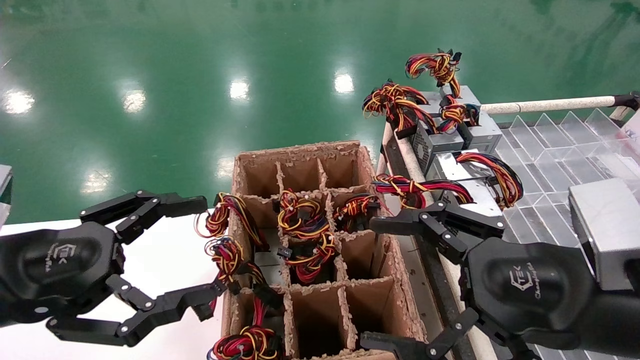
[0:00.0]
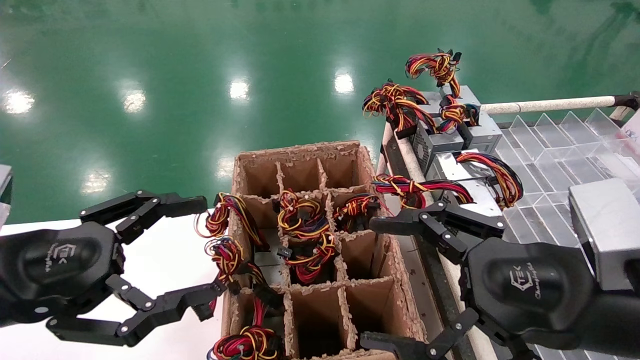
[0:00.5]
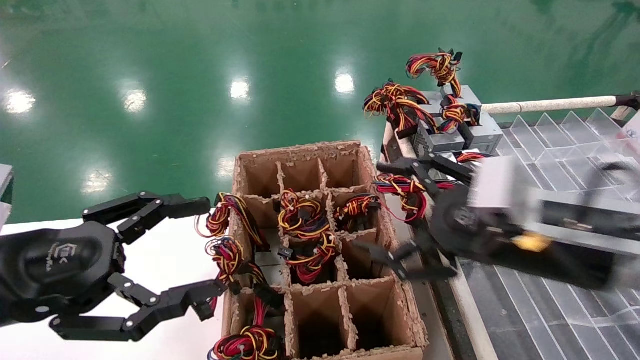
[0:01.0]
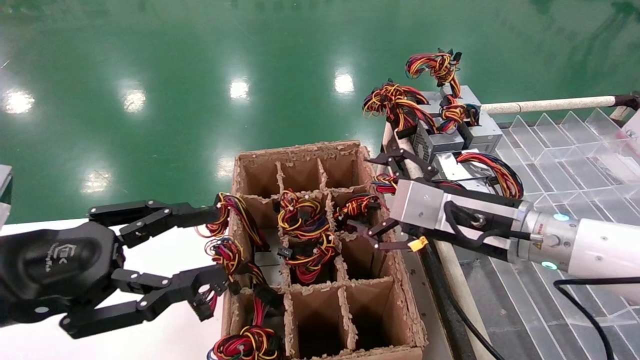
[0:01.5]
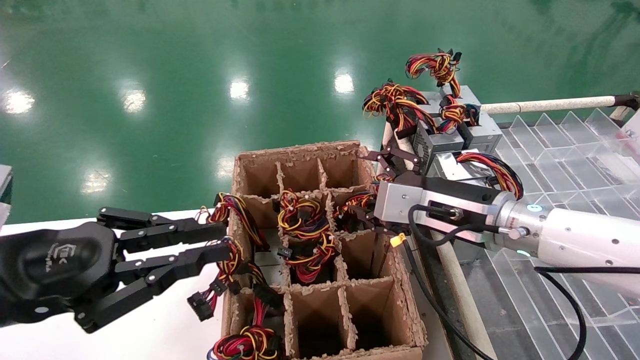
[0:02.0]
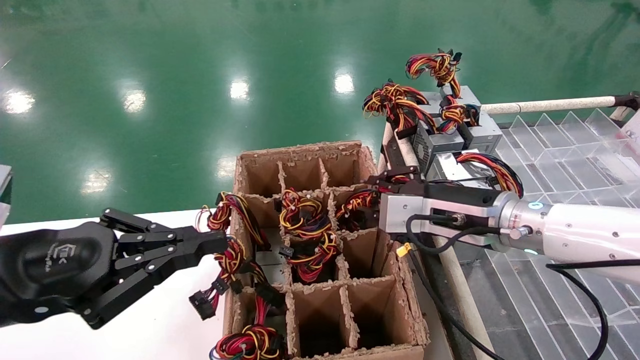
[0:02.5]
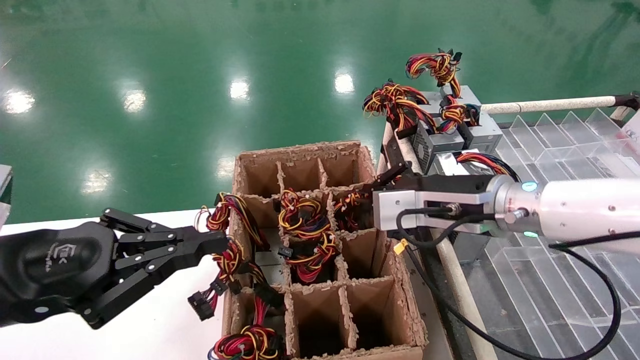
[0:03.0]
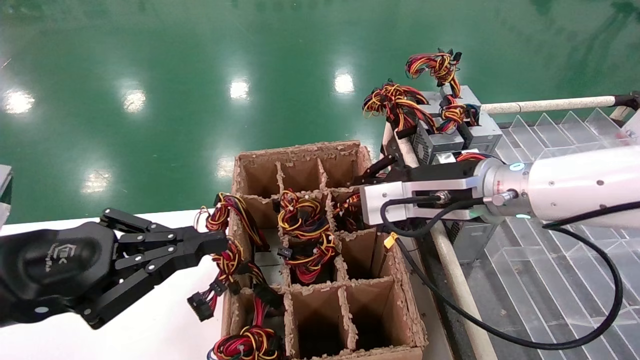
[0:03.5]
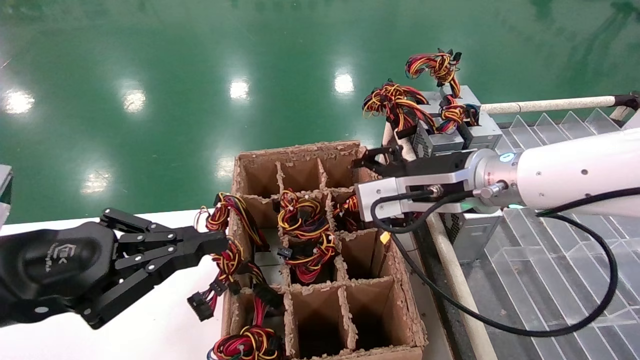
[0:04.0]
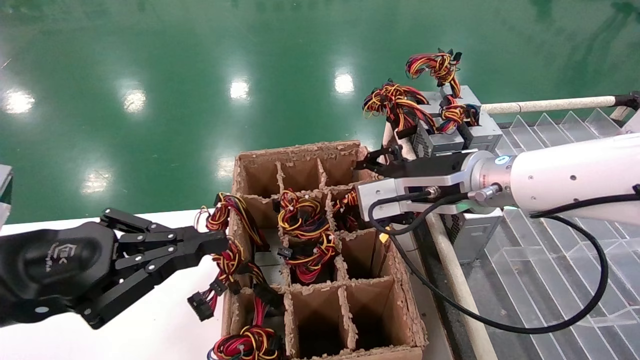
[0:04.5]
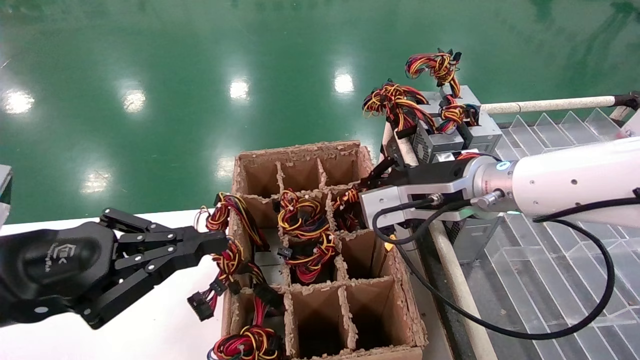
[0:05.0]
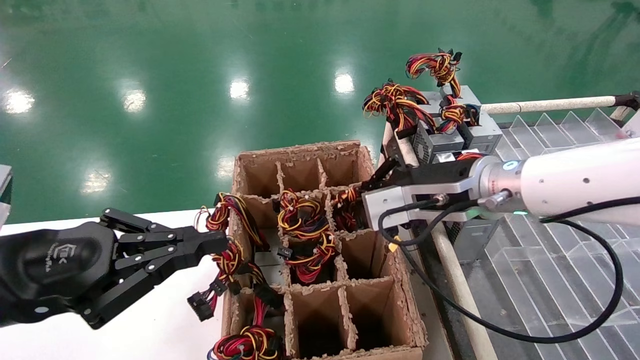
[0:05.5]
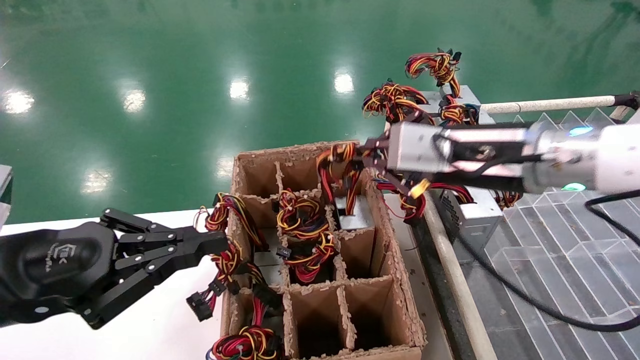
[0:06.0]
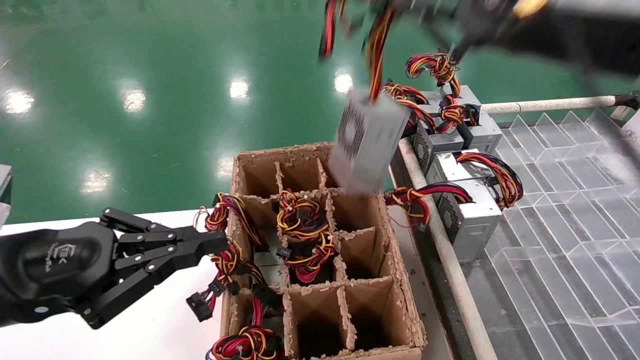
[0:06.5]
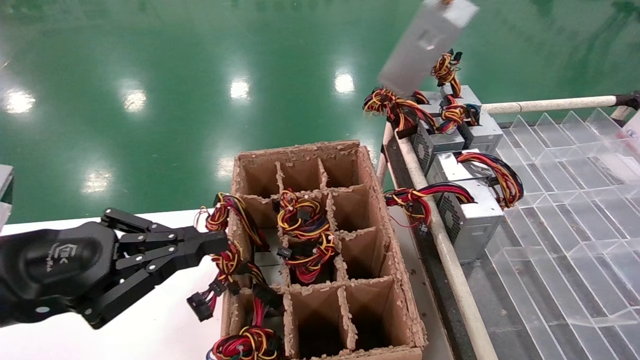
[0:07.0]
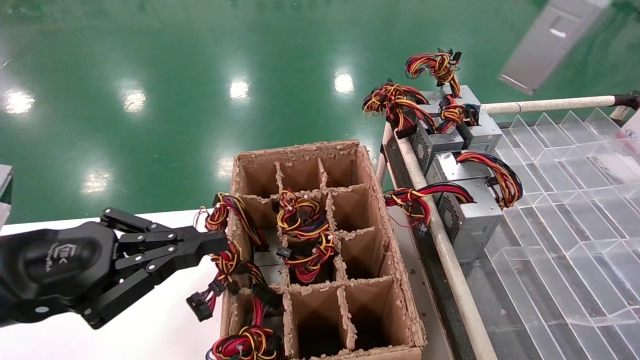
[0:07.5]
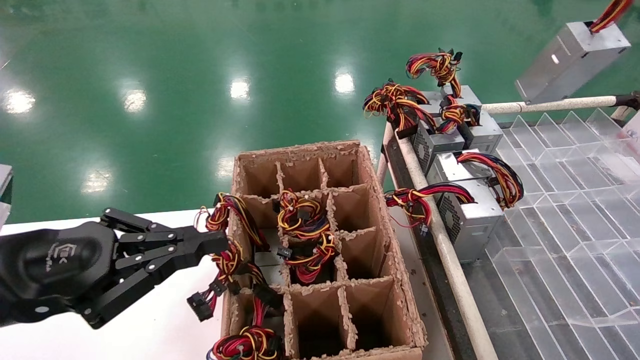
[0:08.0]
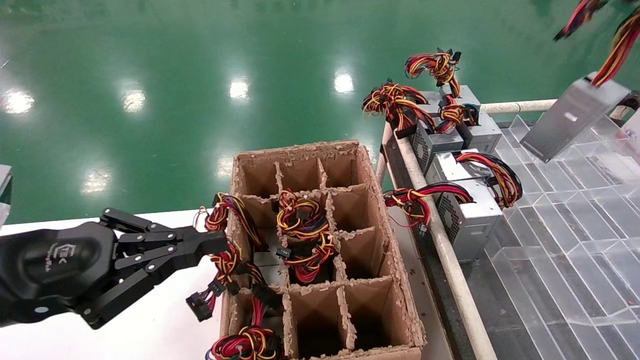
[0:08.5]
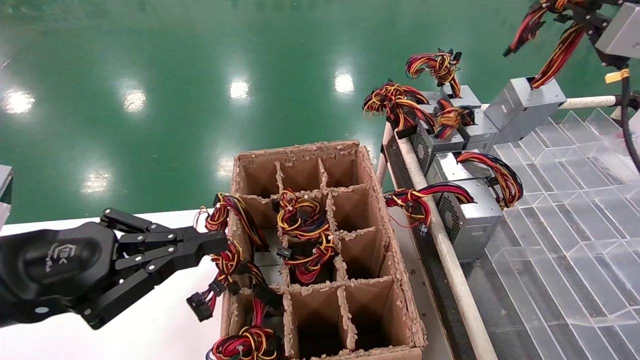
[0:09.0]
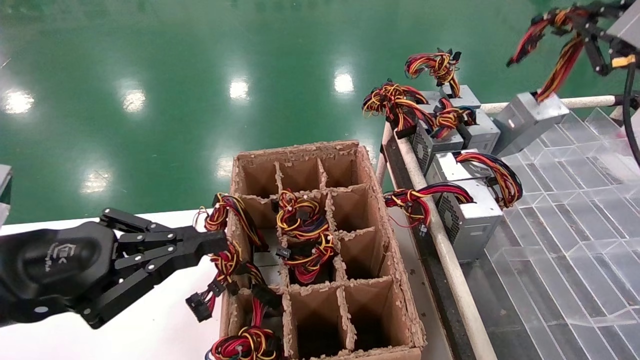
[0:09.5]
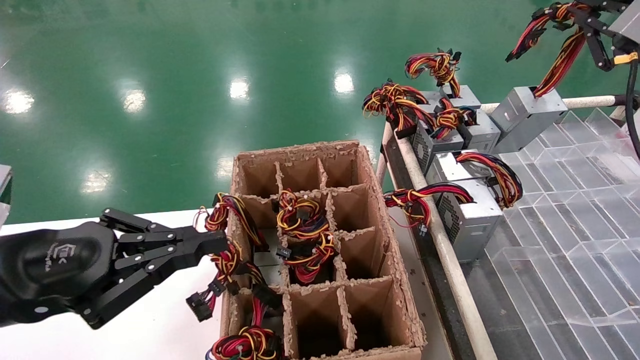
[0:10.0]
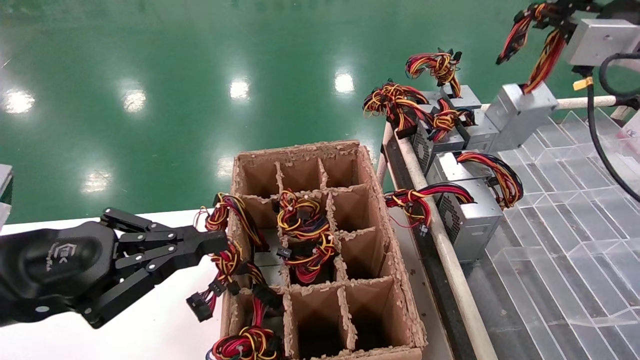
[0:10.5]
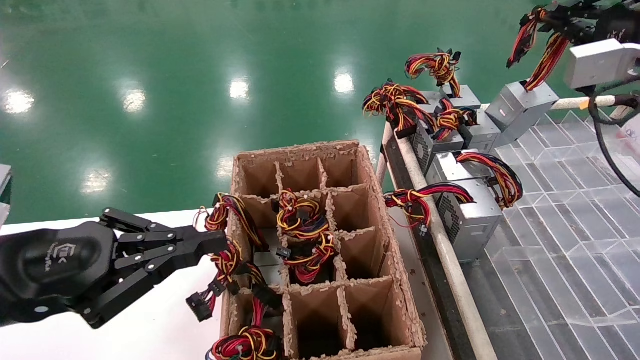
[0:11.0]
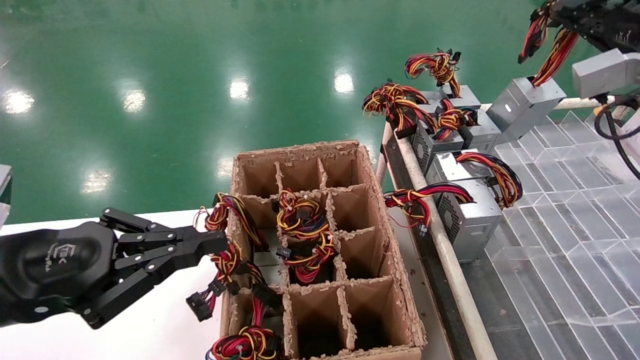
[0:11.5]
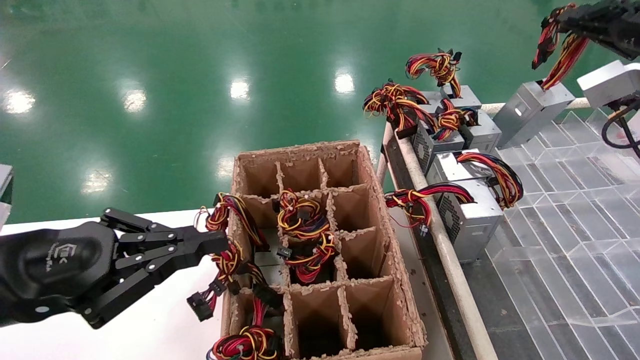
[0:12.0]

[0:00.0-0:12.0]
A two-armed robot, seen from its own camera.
Step, 0:01.0 to 0:05.0: Grab the main unit power supply from the containment box.
0:00.0 to 0:02.0: The right gripper goes about 15 cm forward. The left gripper closes its fingers.
0:02.0 to 0:04.0: The right gripper moves upward, approximately 5 cm, and closes up.
0:04.0 to 0:06.0: The right gripper goes roughly 5 cm upward, and closes its fingers.
0:06.0 to 0:08.0: The right gripper is displaced to the right and upward by about 30 cm.
0:08.0 to 0:10.0: The right gripper goes approximately 10 cm downward and forward.

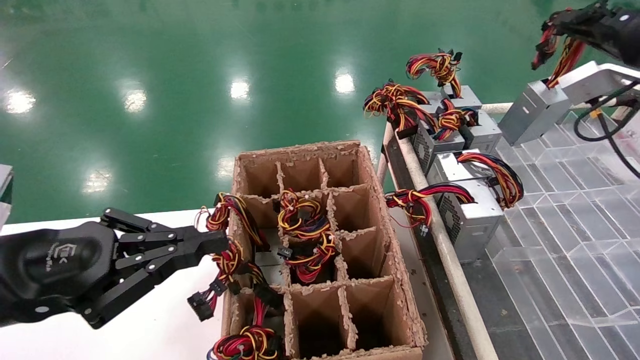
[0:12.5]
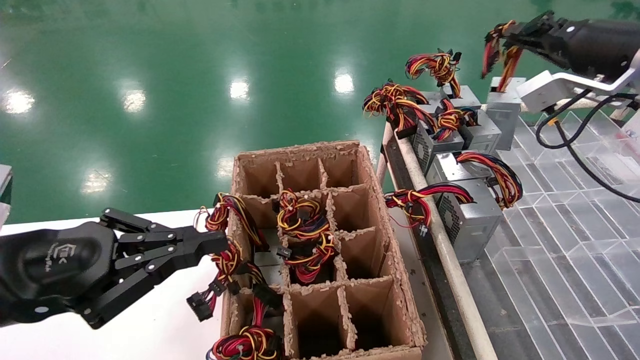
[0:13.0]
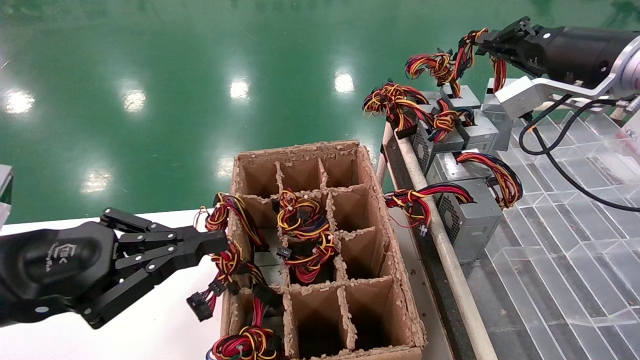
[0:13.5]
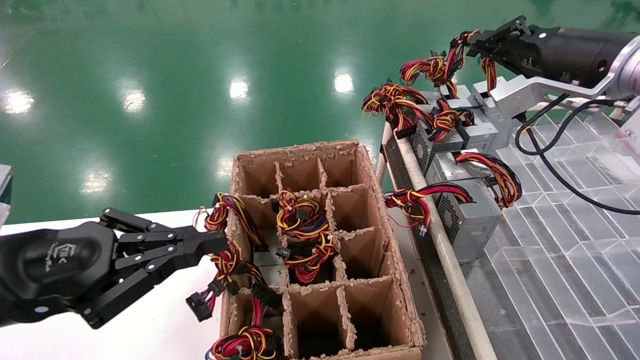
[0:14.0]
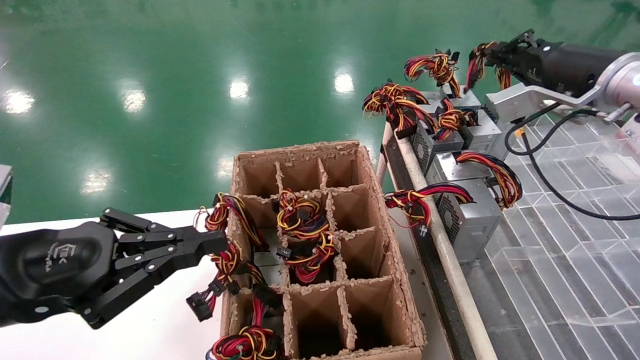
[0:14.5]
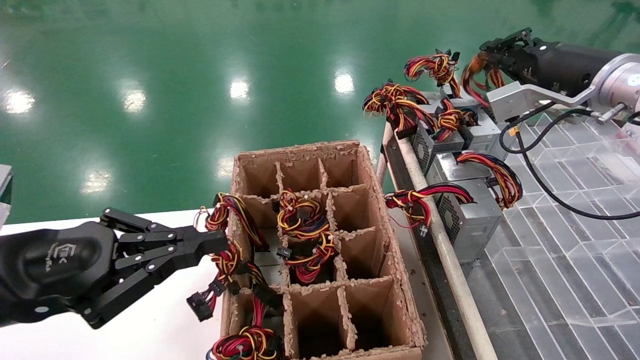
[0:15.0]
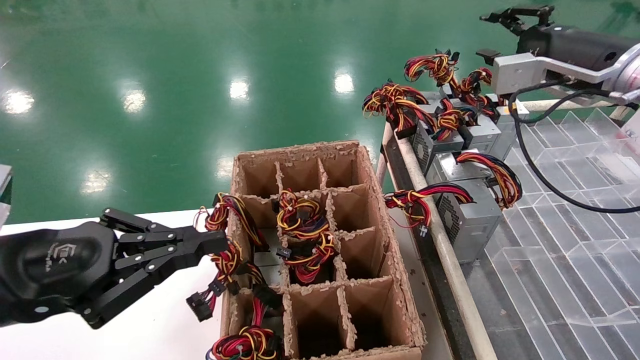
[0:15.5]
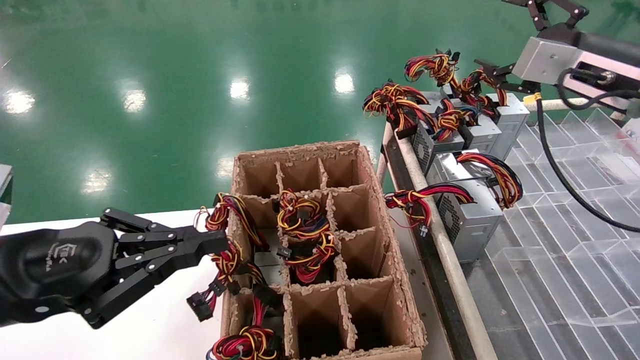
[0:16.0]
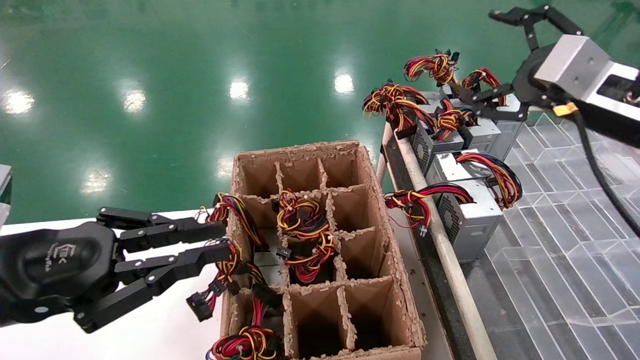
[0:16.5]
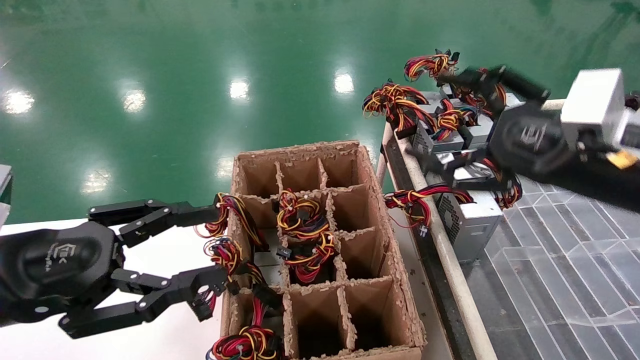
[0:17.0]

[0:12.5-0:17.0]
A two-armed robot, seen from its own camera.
Step, 0:12.5 to 0:15.0: Place the main unit power supply in the designated area.
0:12.5 to 0:14.5: The right gripper moves to the left, some 5 cm.
0:14.5 to 0:17.0: The left gripper opens. Meanwhile the right gripper goes about 20 cm backward, downward and to the left, and opens.

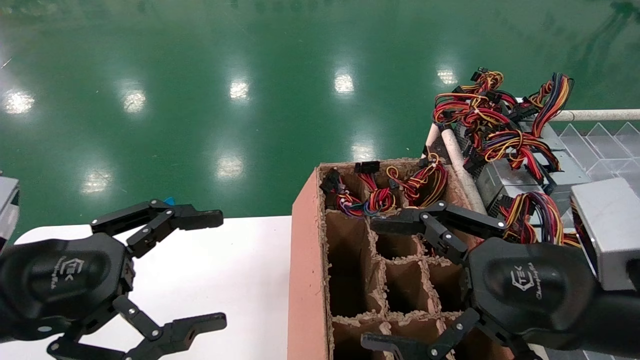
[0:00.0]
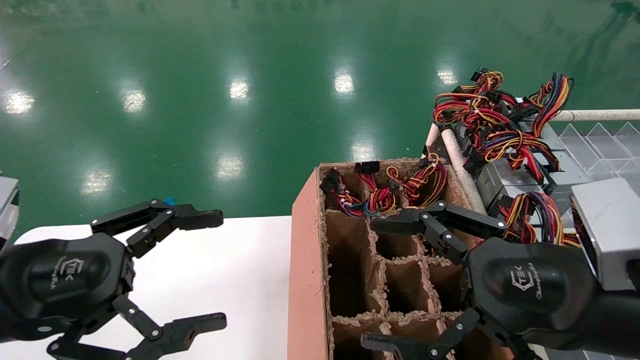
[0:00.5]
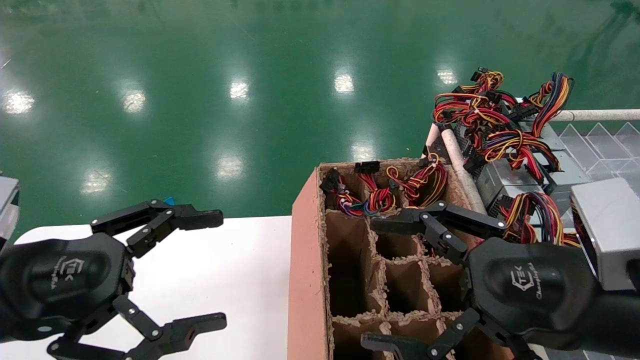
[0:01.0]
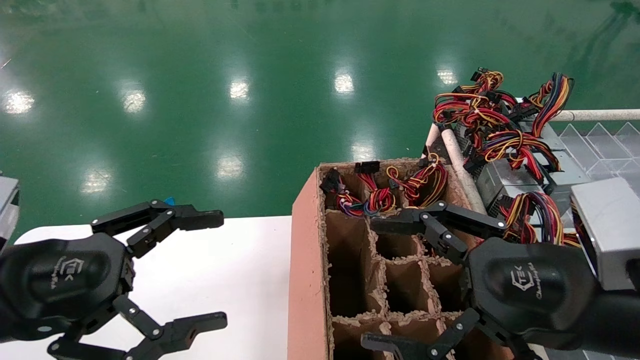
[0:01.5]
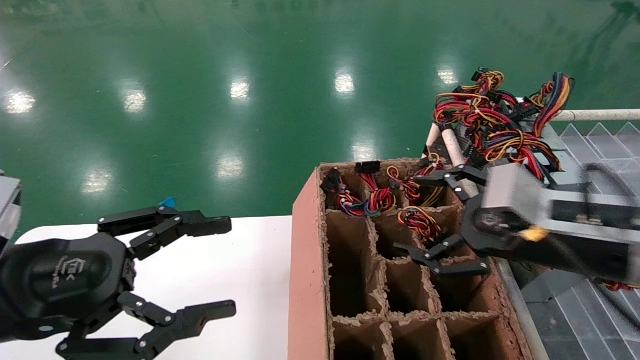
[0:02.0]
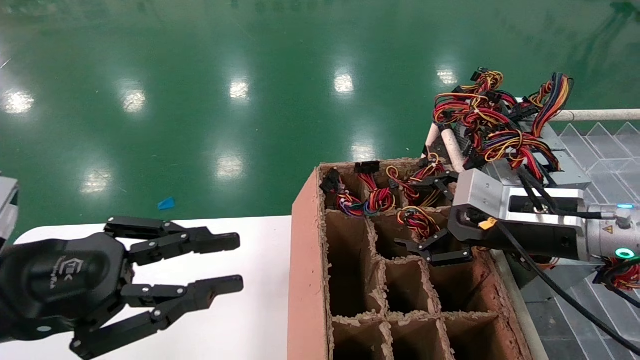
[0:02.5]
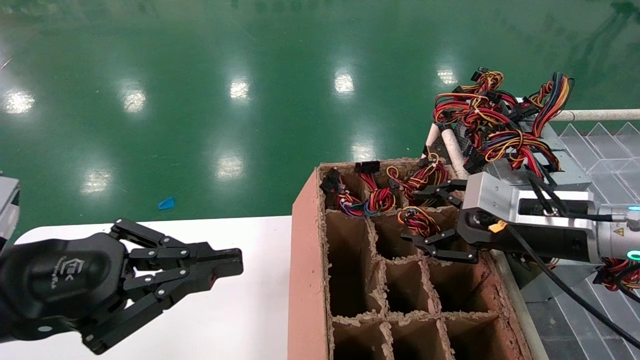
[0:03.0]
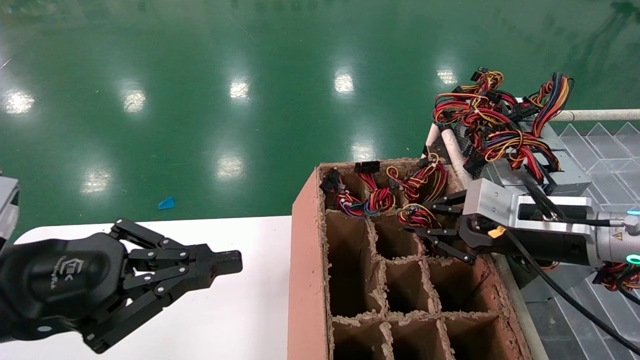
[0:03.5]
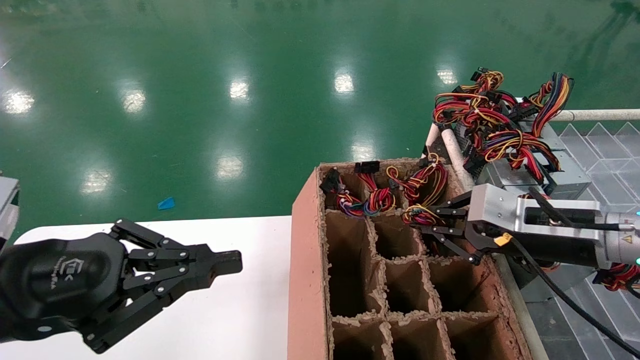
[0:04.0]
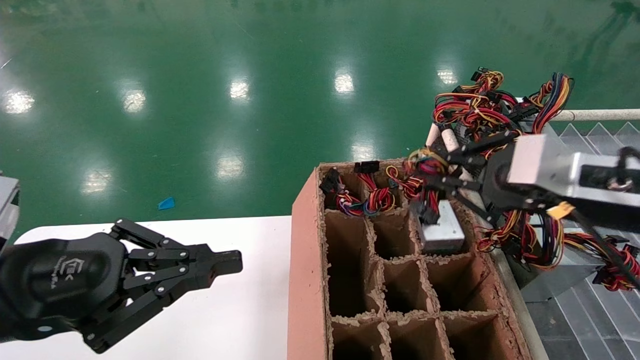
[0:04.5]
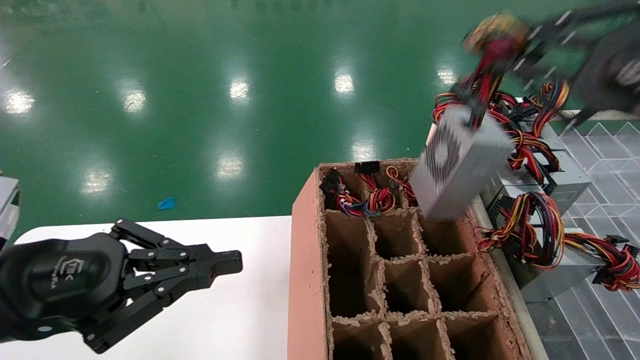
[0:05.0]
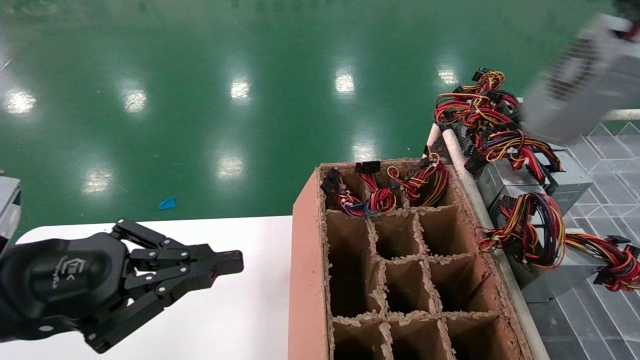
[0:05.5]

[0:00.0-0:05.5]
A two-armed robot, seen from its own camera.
Step, 0:02.0 to 0:03.5: Grab the main unit power supply from the containment box.
0:00.0 to 0:02.0: The right gripper heads forward, covering some 10 cm.
0:02.0 to 0:03.5: The right gripper heads forward, covering approximately 5 cm, and closes up; the left gripper closes up.
0:03.5 to 0:05.5: The right gripper is displaced upward, backward and to the right by some 30 cm.
